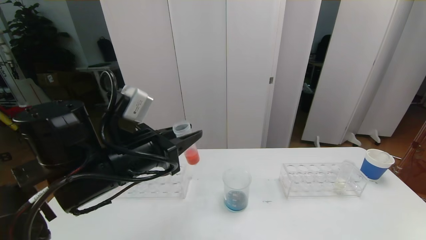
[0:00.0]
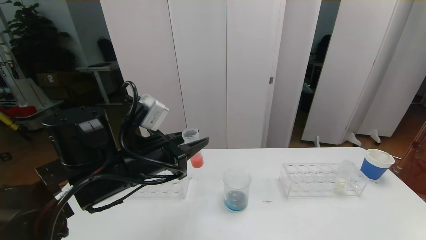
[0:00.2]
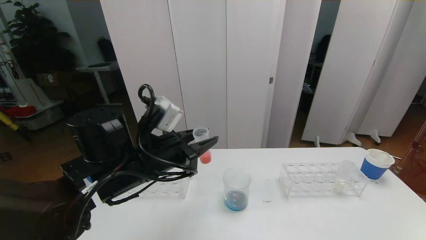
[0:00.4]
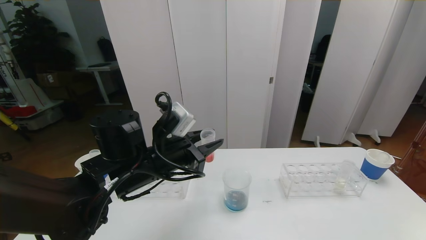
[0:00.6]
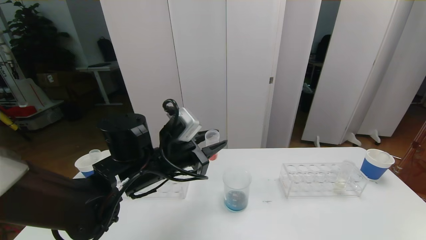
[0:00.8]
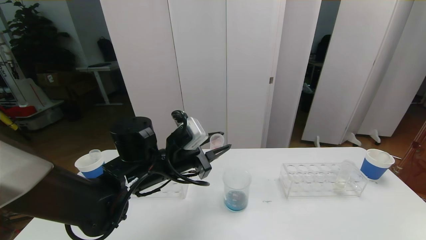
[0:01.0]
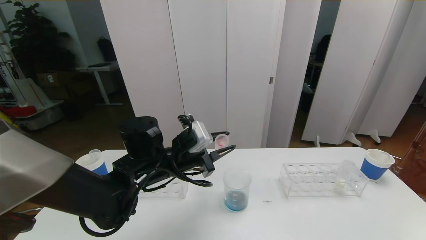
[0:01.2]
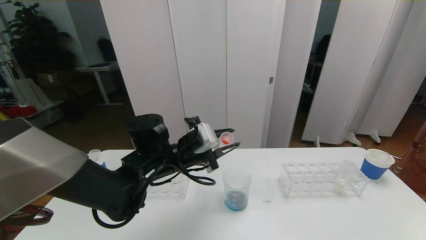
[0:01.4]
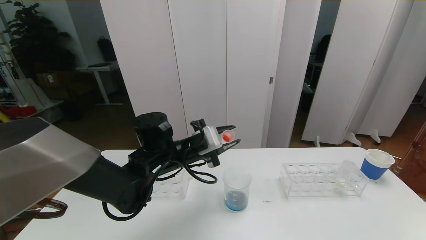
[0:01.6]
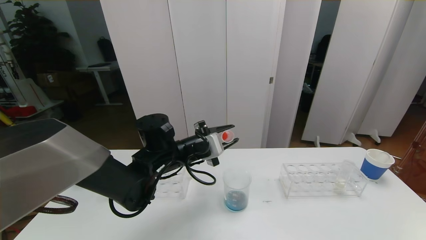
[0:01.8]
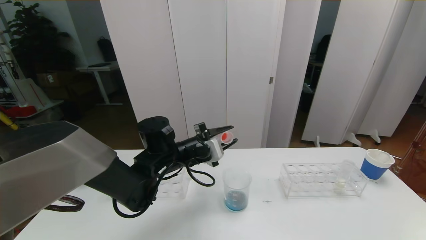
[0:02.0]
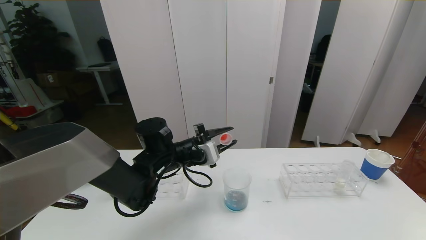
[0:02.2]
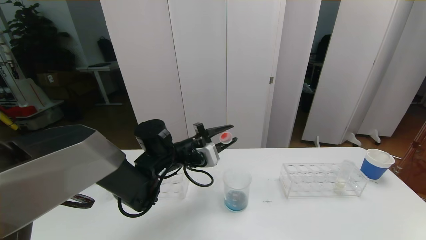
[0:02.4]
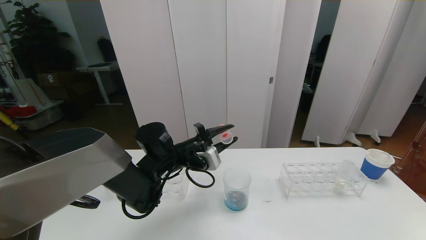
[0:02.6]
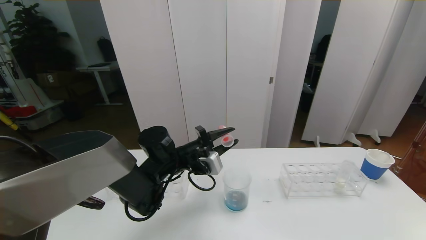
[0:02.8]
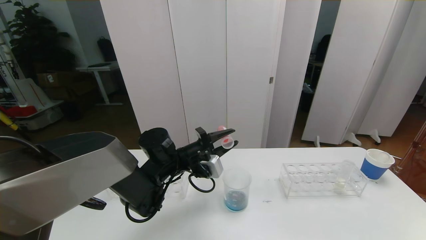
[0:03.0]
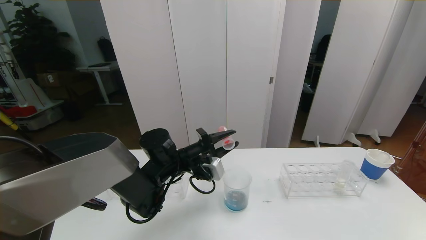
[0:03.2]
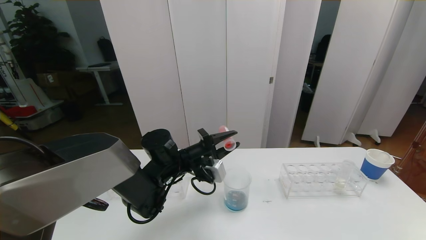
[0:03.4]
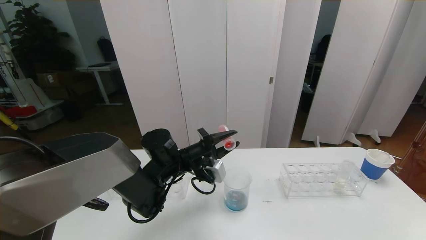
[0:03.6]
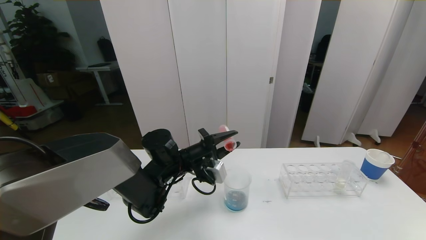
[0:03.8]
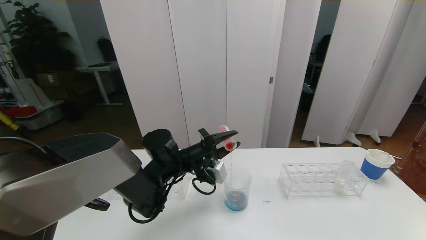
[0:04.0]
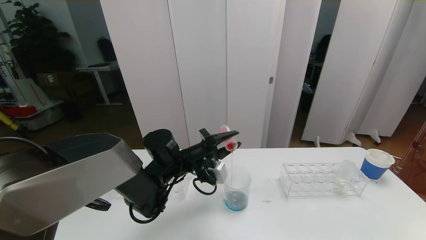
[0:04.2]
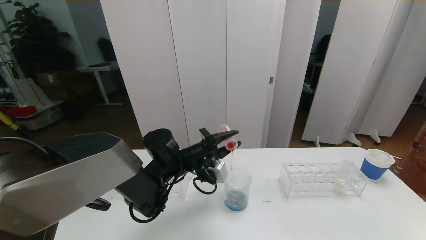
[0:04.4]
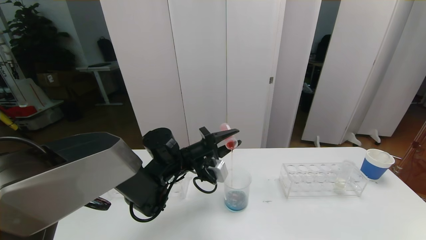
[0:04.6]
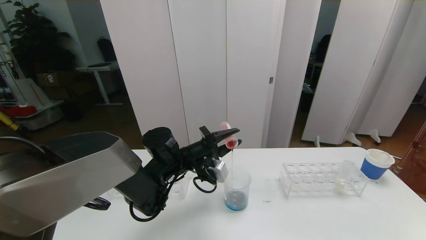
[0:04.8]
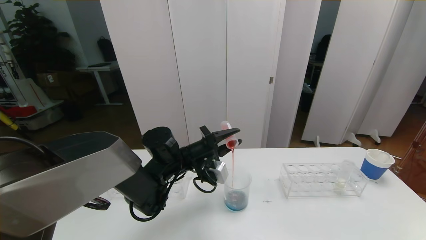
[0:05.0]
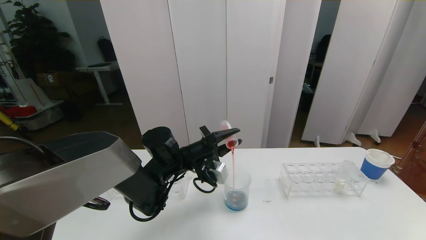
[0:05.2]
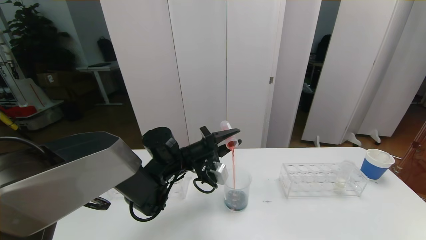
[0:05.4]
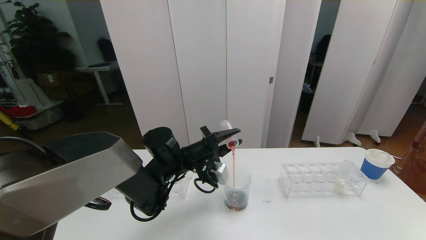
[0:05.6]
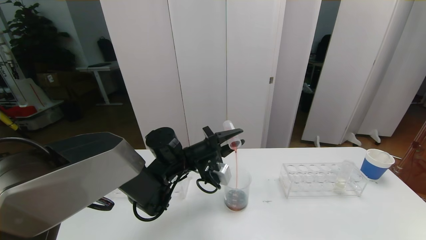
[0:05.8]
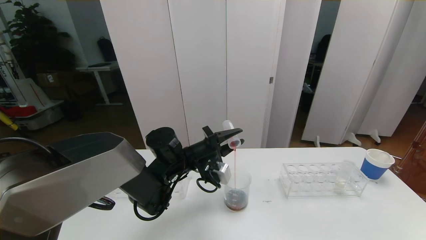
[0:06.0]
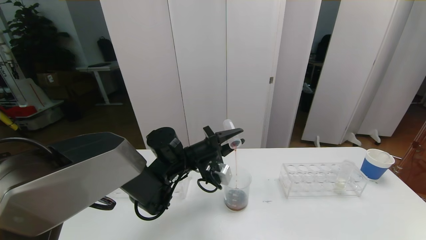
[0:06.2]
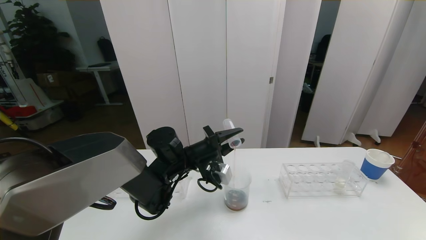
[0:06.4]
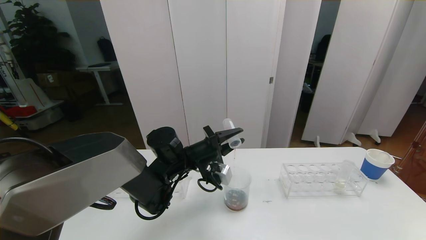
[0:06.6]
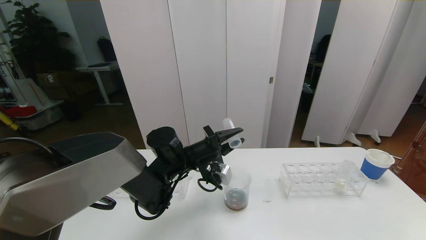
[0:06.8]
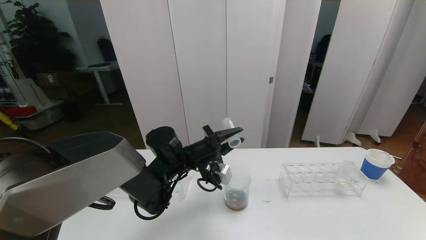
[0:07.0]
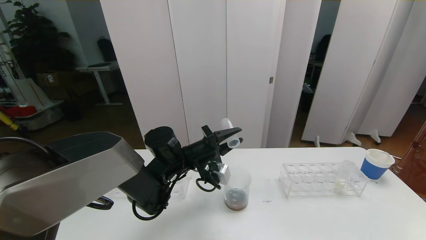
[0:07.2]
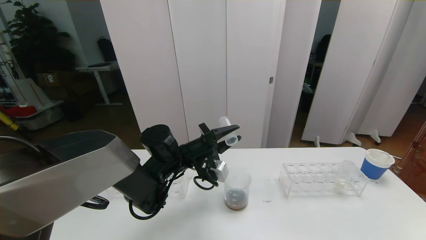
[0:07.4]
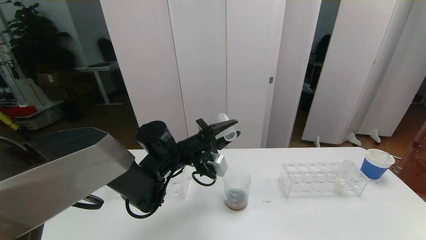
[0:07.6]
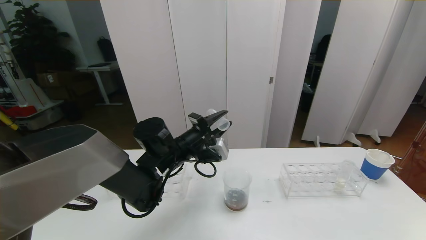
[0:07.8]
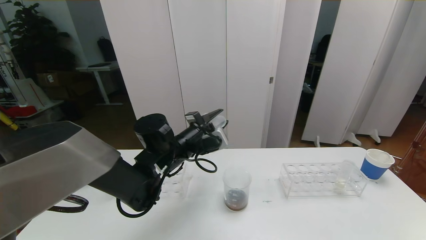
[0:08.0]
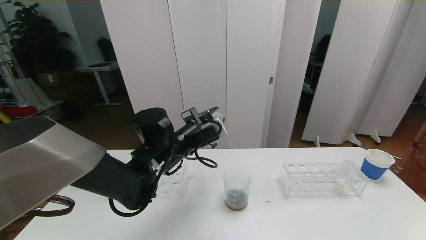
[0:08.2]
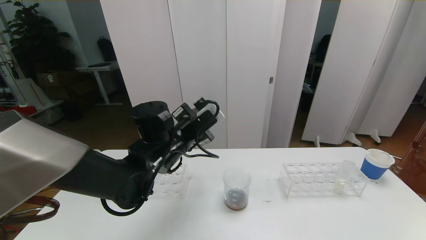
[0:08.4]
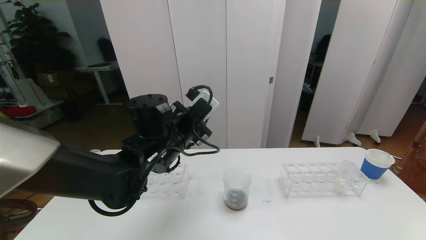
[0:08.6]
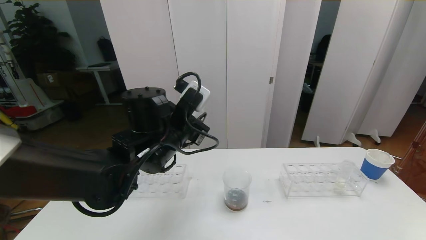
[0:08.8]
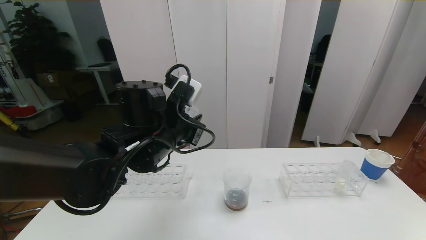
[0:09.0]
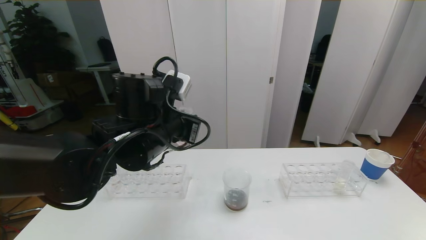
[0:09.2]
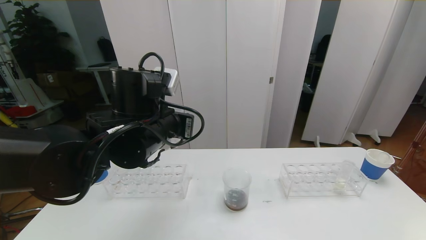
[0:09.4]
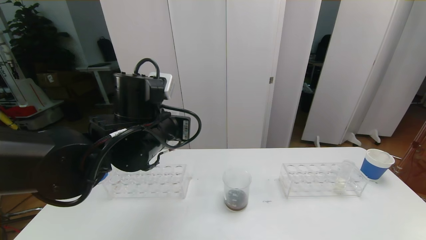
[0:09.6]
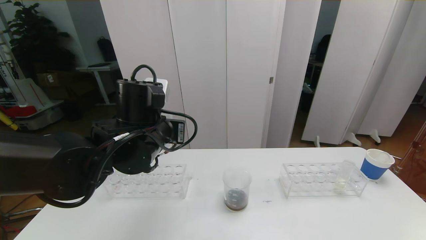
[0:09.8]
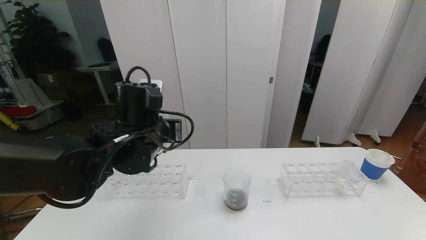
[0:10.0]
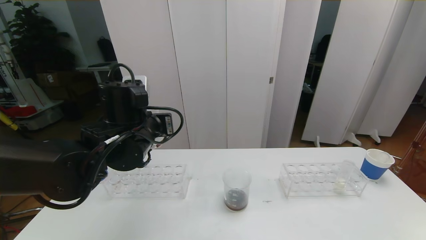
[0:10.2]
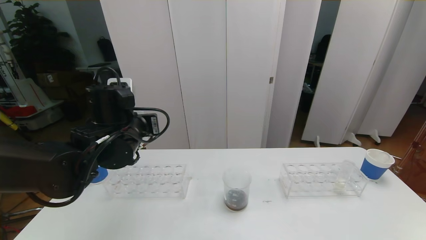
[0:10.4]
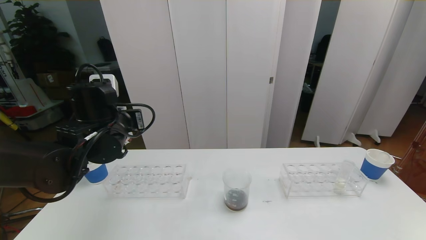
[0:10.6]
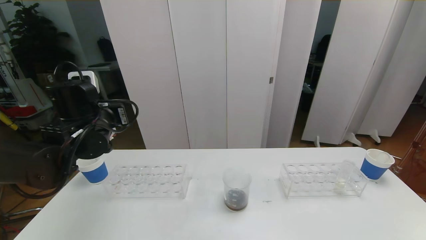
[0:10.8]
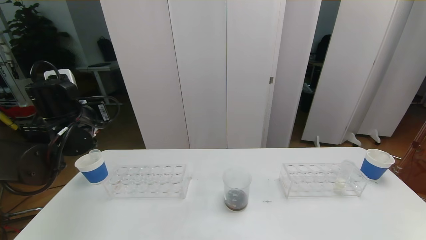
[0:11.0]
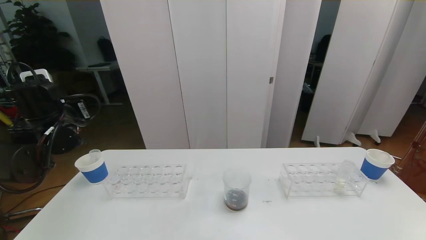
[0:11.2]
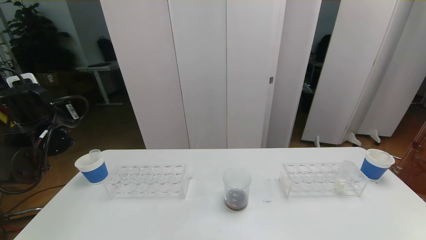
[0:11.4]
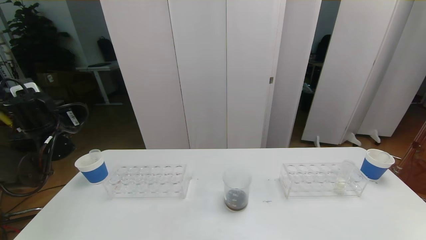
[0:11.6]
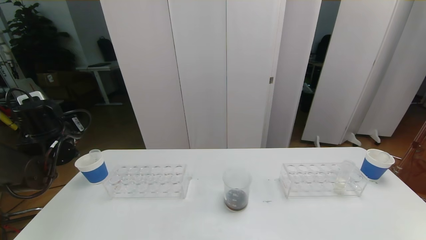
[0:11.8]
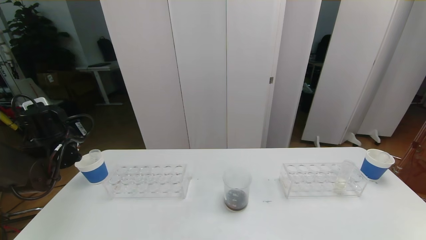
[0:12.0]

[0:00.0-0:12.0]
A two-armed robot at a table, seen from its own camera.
Task of the whole recording: pick up the test tube with red pigment the test tube with blue pigment and the test tube with white pigment by grippers and pour them into the beaker.
0:00.0 to 0:01.6: The left gripper shifts roughly 15 cm forward, downward and to the right.
0:03.0 to 0:07.6: There are only small adjustments of the grippers.
0:07.6 to 0:09.0: The left gripper goes some 10 cm upward and backward.
0:09.0 to 0:10.4: The left gripper goes some 10 cm to the left.
0:10.4 to 0:12.0: The left gripper goes roughly 20 cm to the left.

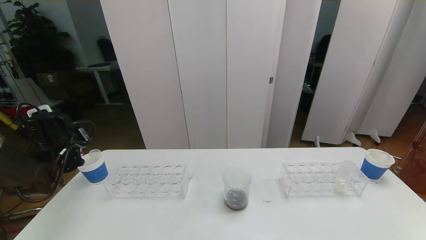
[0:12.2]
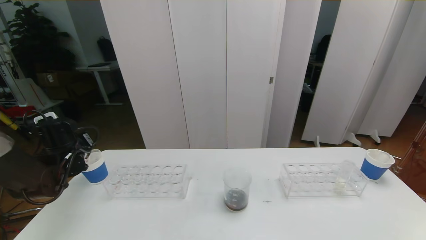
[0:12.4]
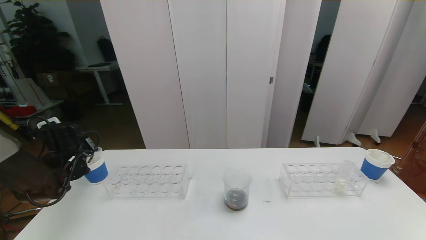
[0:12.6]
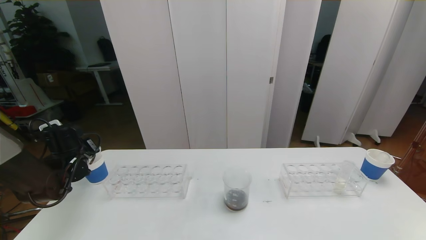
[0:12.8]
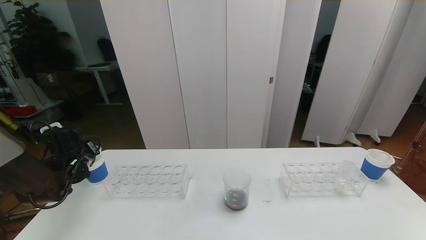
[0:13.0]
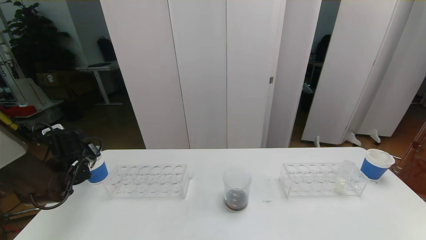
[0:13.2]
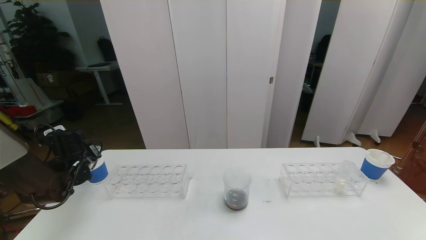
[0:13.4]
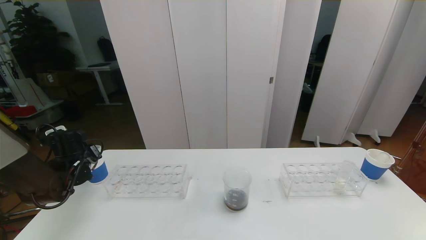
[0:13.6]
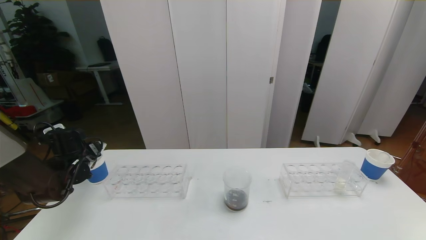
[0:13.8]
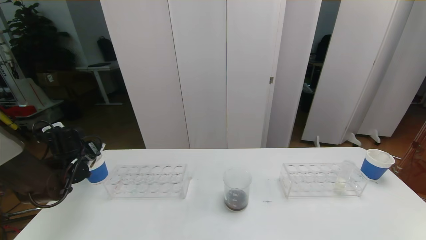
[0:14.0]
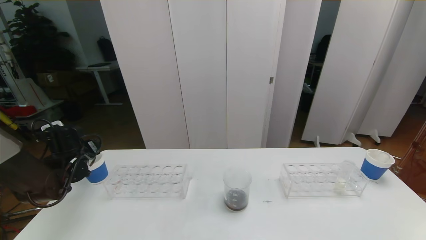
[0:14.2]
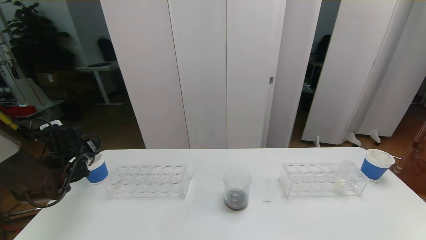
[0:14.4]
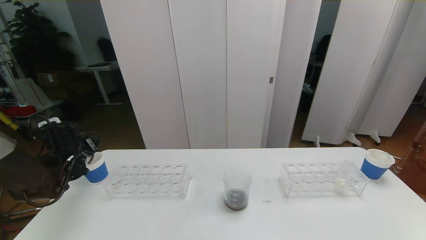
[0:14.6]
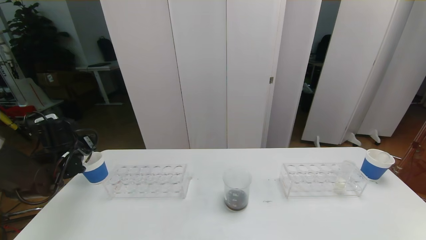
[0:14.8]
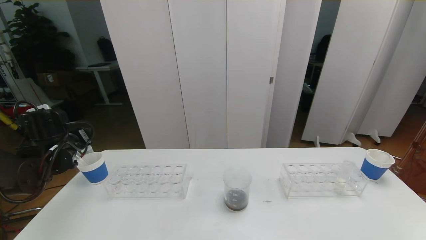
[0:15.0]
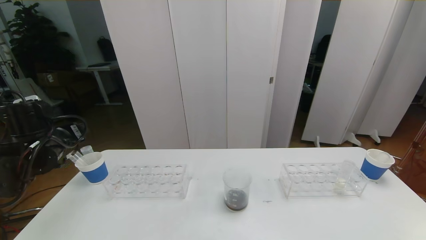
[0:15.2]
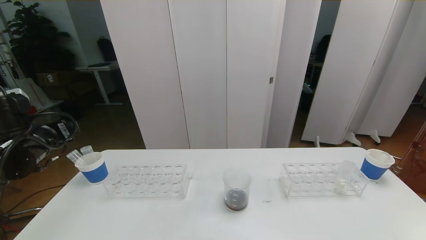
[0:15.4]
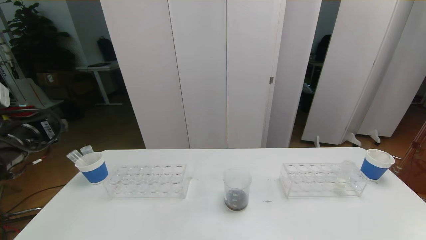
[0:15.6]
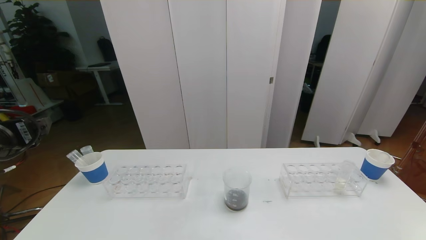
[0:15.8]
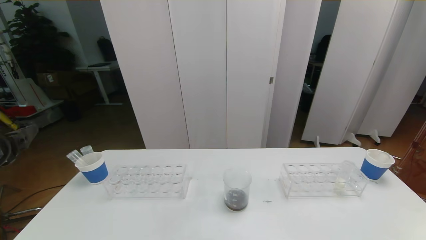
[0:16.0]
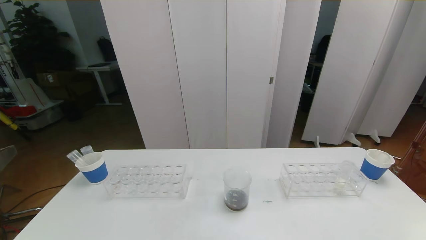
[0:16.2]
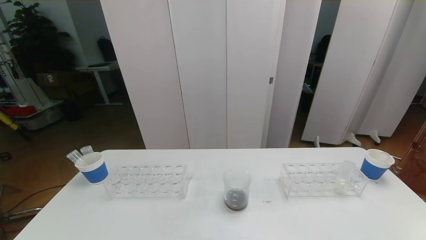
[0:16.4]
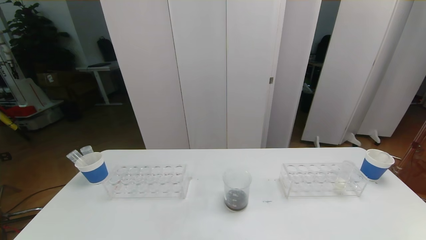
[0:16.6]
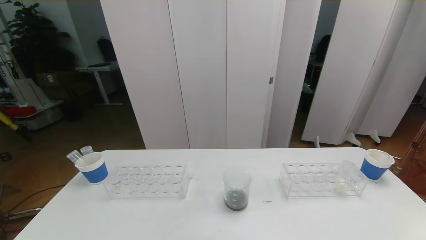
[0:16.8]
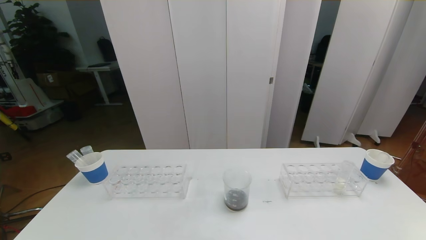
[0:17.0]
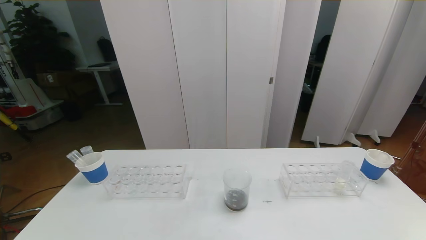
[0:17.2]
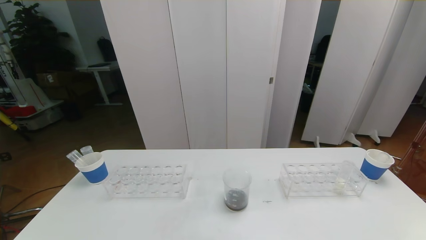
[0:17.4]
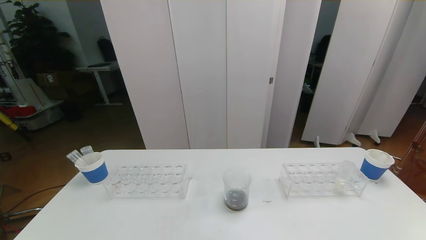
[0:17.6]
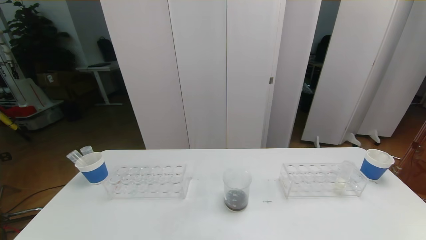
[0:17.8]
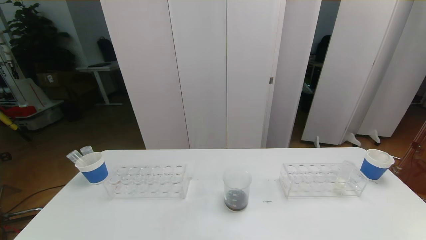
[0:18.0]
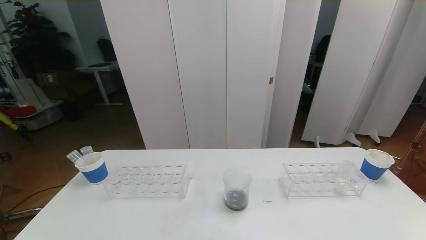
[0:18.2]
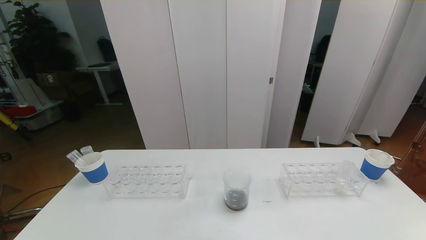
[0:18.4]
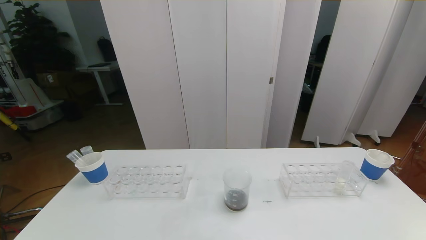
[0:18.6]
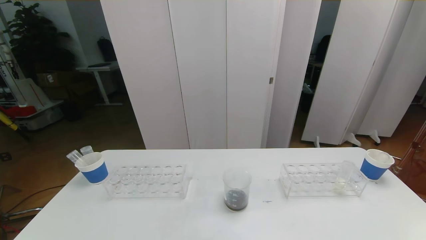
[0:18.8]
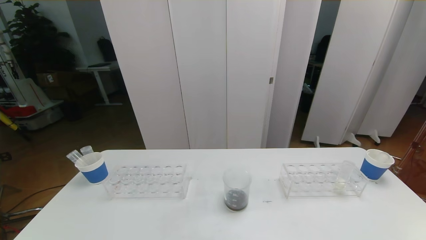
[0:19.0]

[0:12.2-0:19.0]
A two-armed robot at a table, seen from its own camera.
Task of the whole recording: pick up the test tube with red pigment the test tube with blue pigment and the test tube with white pigment by grippers and pour them into the beaker.
0:12.2 to 0:13.6: The left gripper opens up.
0:13.6 to 0:15.0: The left gripper shifts roughly 5 cm upward, and opens.
0:15.0 to 0:16.2: The left gripper is displaced backward and upward by some 25 cm.
